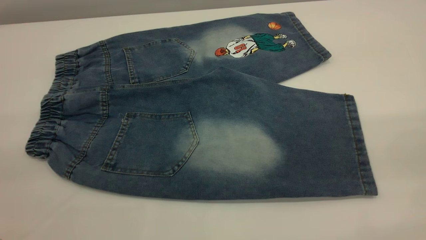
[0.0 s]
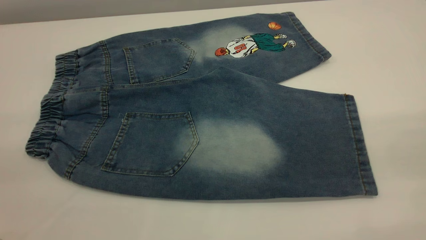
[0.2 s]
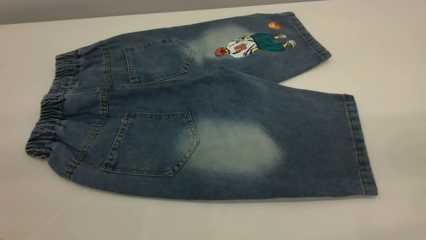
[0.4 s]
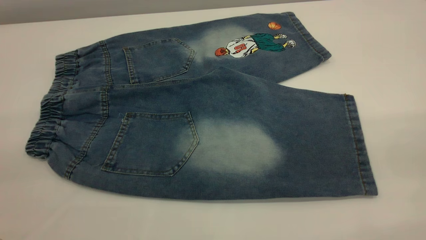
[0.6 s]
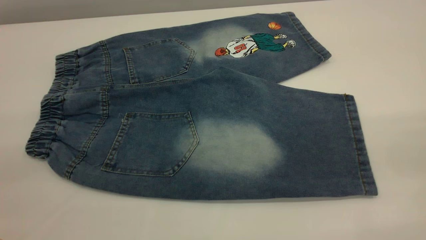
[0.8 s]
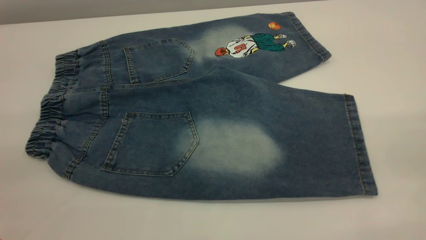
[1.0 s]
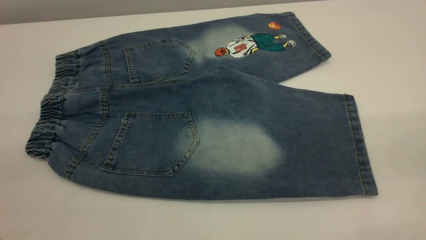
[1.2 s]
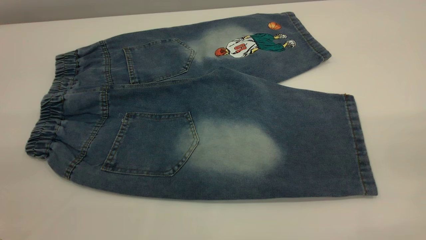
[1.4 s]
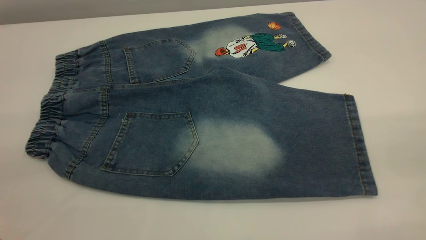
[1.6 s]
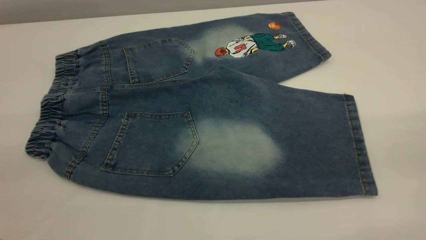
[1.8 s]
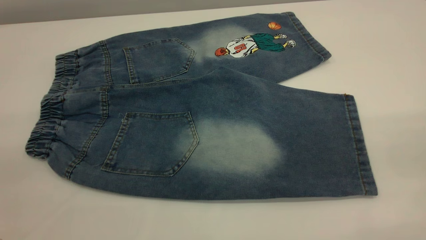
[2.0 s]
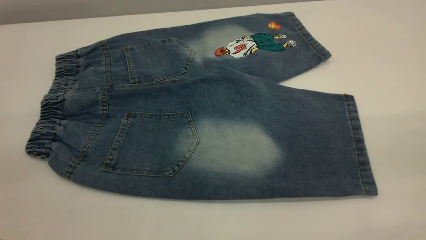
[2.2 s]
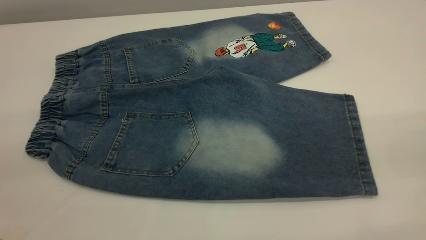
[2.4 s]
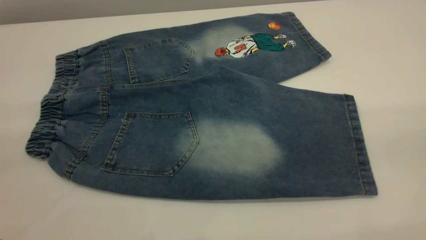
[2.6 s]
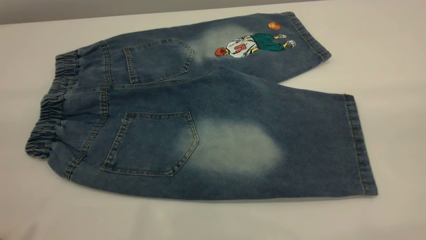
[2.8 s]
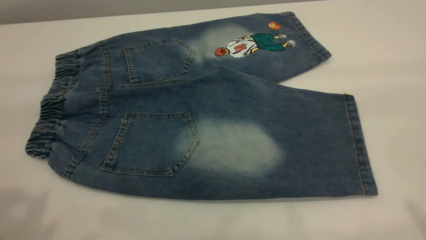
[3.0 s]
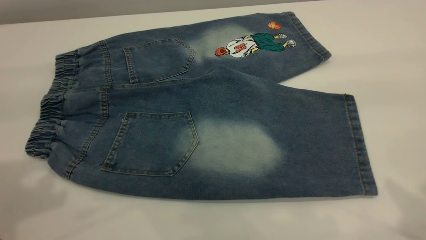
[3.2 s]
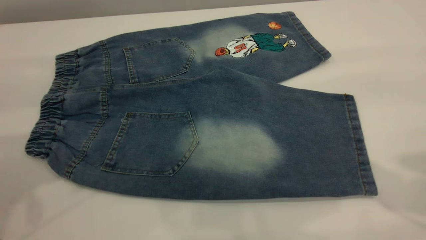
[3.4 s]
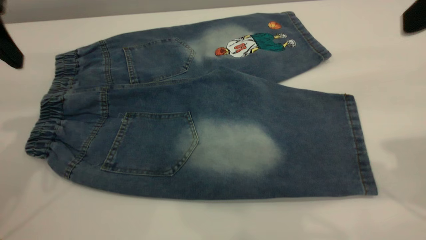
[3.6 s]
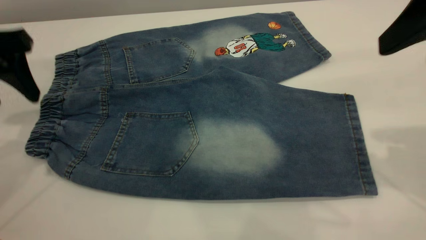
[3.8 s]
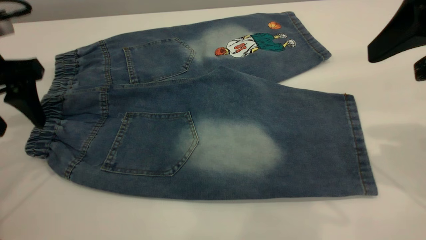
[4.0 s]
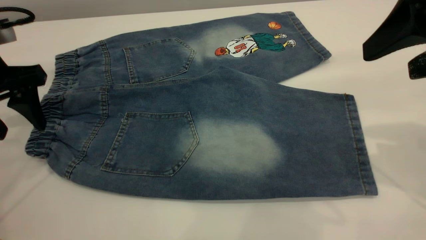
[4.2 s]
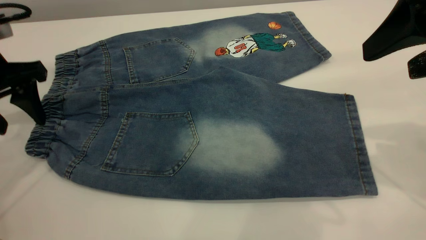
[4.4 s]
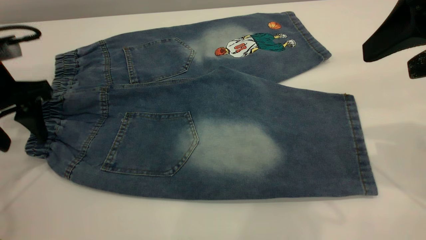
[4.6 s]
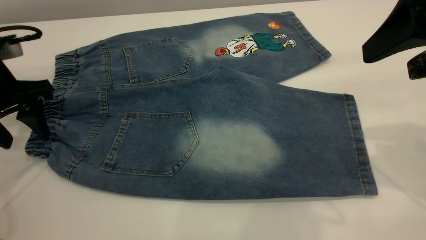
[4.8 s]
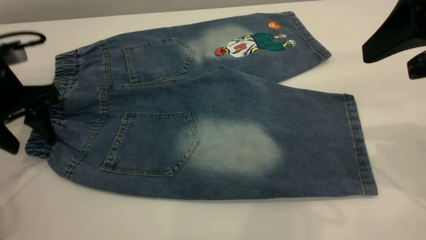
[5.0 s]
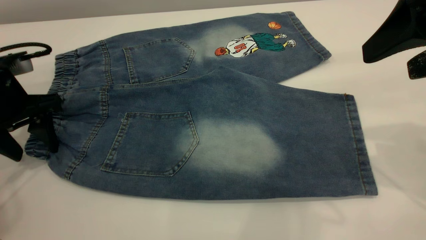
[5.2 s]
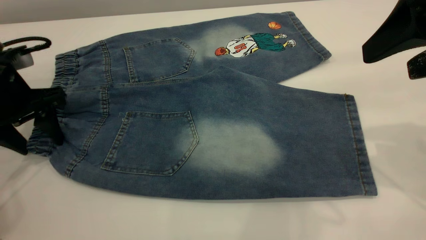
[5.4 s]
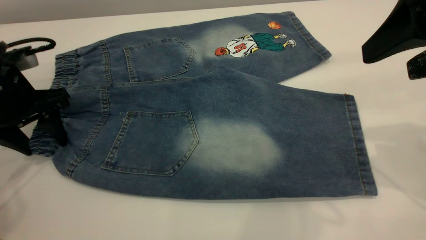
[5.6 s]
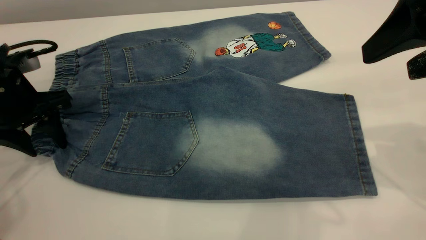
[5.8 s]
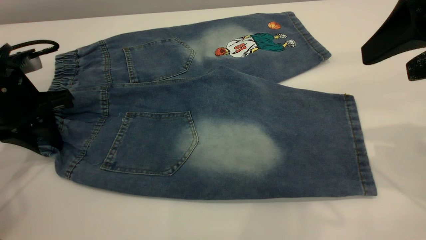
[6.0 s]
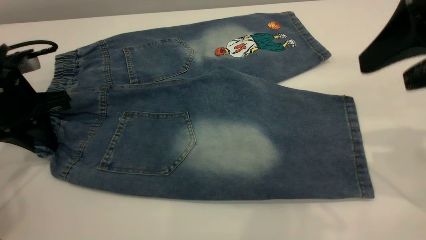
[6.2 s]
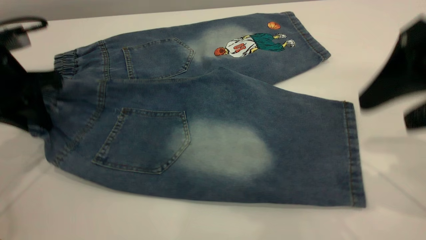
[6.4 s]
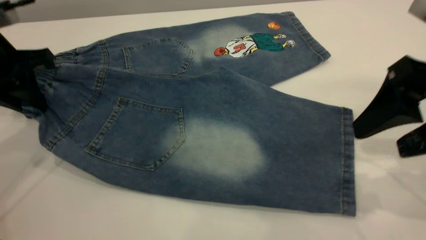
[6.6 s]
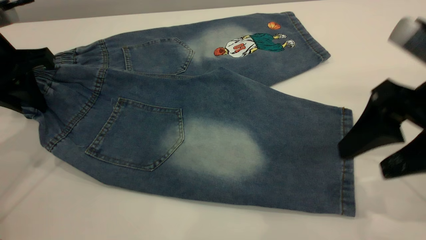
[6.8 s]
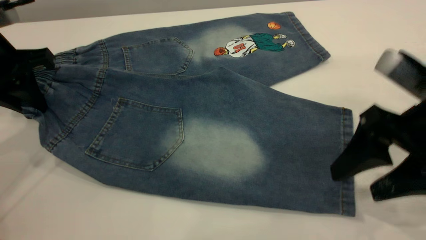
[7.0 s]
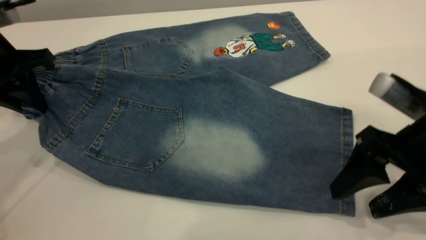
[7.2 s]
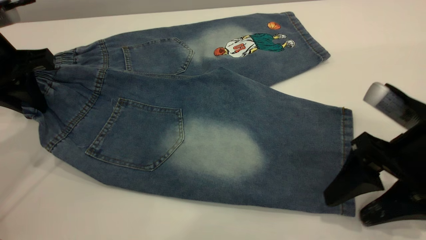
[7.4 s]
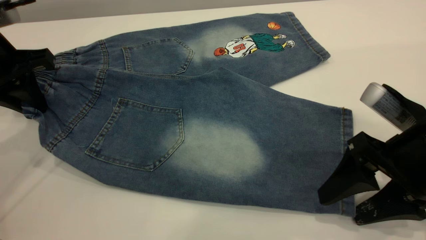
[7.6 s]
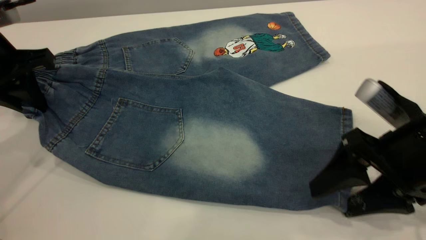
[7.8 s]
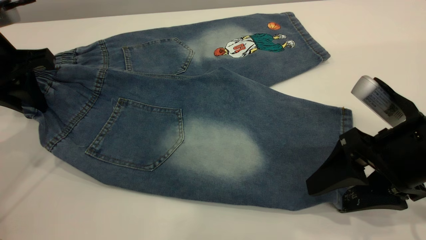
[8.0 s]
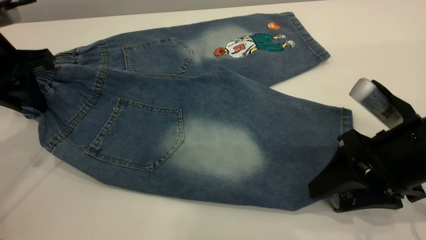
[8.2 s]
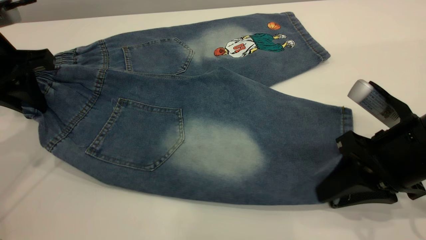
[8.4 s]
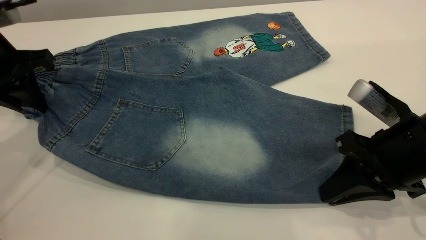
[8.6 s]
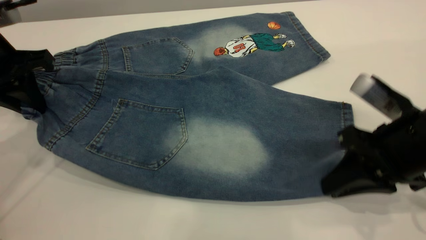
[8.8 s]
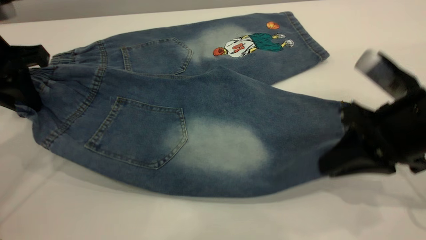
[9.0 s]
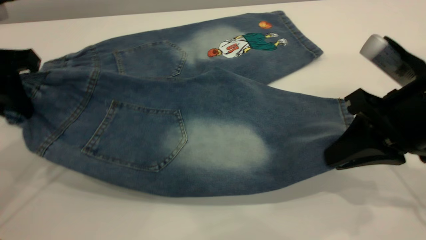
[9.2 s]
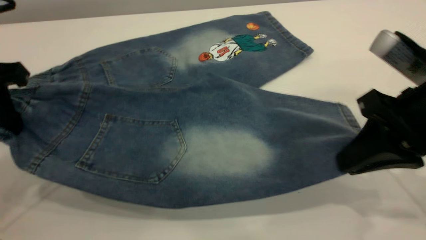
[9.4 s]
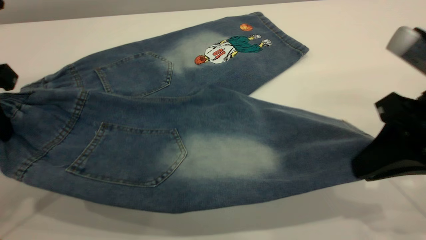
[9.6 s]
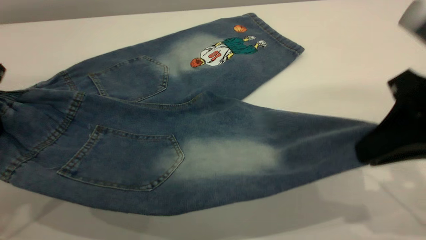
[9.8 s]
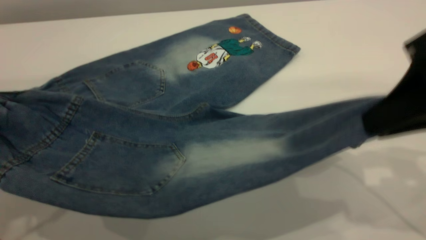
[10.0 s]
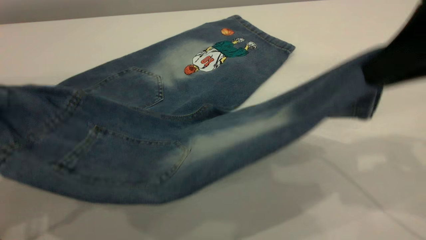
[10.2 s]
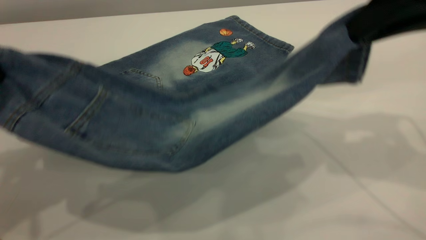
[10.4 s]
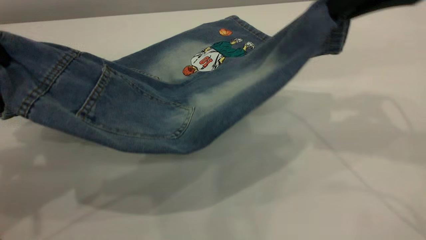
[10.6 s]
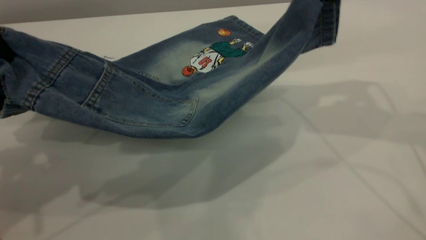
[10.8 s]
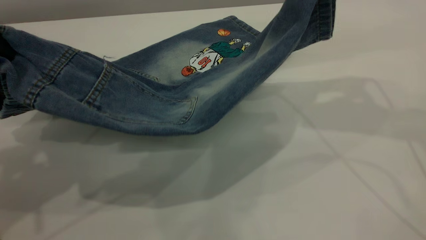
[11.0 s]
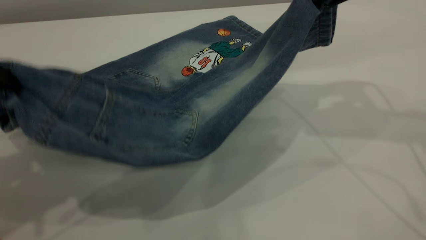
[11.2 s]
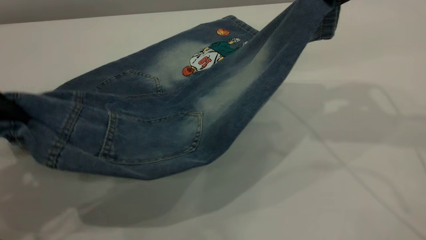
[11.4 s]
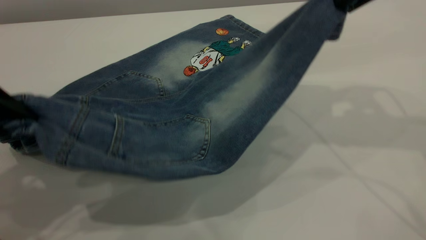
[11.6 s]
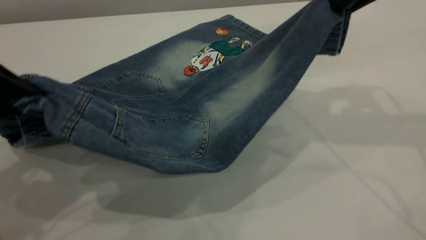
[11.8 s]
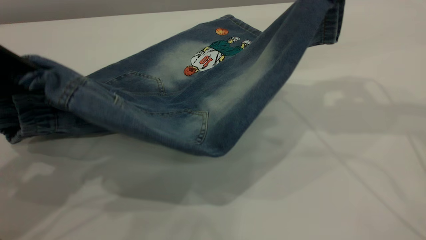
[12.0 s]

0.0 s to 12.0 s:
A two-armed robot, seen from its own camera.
0.0 to 1.6 s: Both grippers stay about where they are.
3.0 to 4.4 s: The right gripper moves forward and downward, about 15 cm. Meanwhile the left gripper goes approximately 25 cm downward and forward.
4.4 to 6.0 s: The left gripper shifts by about 5 cm, and closes.
6.0 to 7.6 s: The right gripper shifts roughly 15 cm downward; the left gripper heads upward, covering some 5 cm.
7.6 to 9.0 s: The right gripper closes its fingers.
9.0 to 10.4 s: The right gripper heads upward, covering roughly 15 cm. Meanwhile the left gripper travels upward and backward by some 15 cm.
10.4 to 12.0 s: The right gripper is displaced forward by about 10 cm.

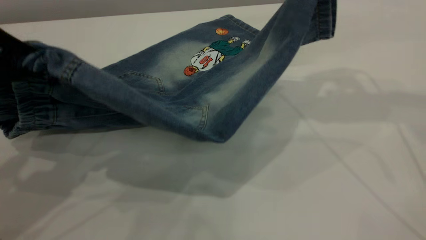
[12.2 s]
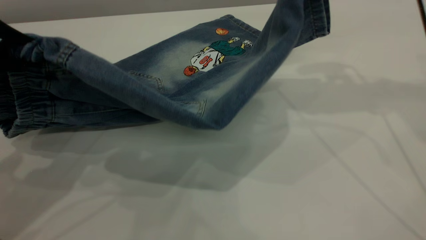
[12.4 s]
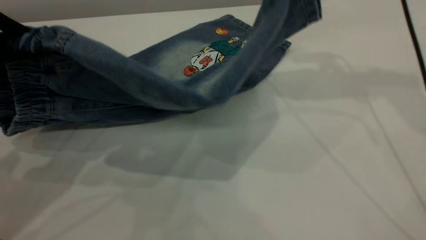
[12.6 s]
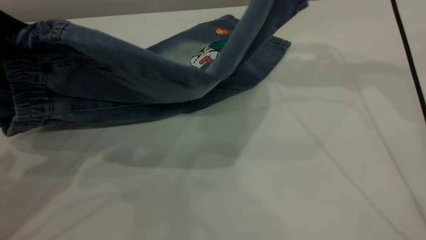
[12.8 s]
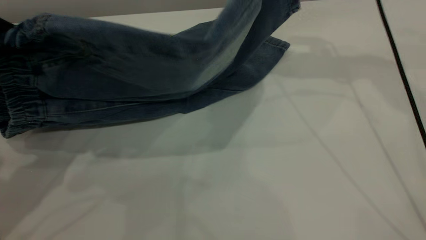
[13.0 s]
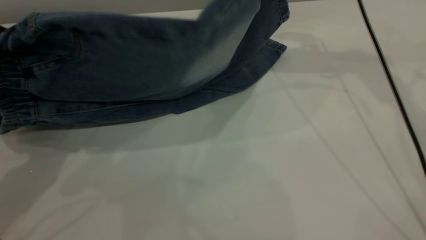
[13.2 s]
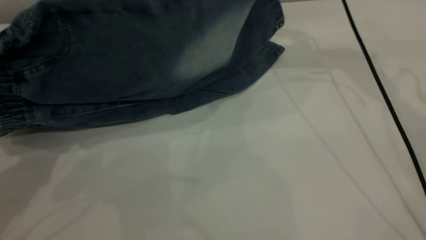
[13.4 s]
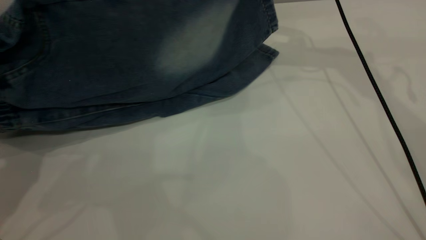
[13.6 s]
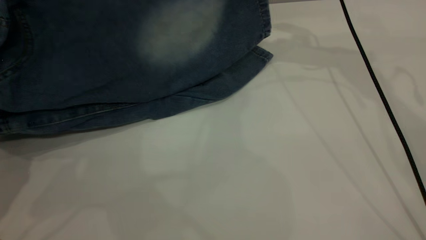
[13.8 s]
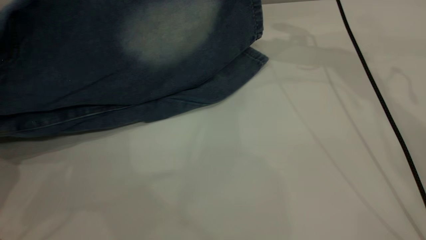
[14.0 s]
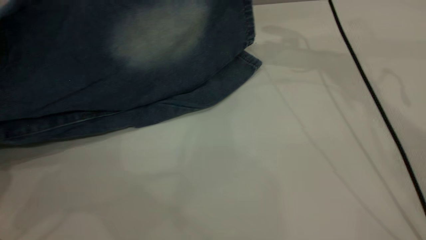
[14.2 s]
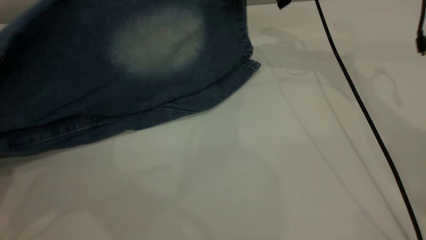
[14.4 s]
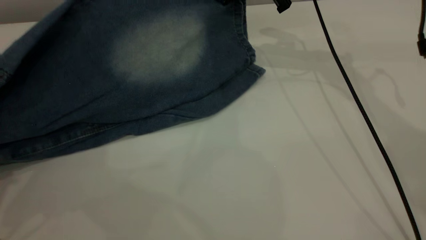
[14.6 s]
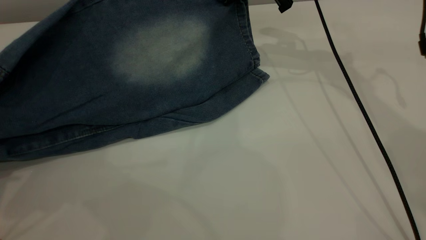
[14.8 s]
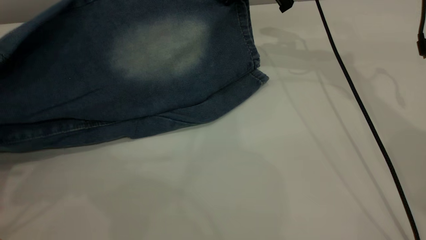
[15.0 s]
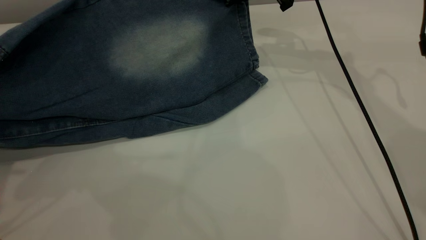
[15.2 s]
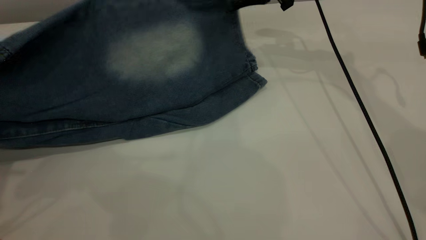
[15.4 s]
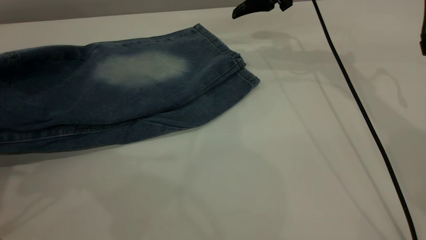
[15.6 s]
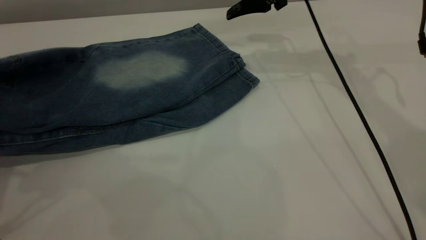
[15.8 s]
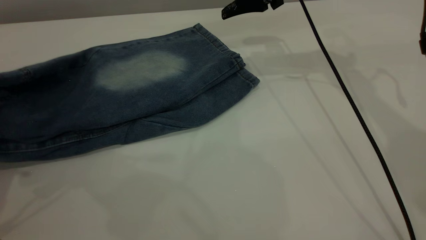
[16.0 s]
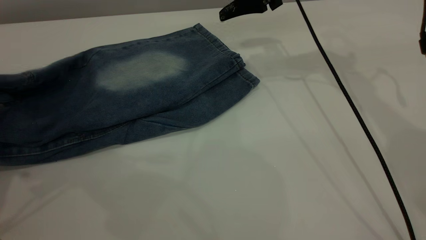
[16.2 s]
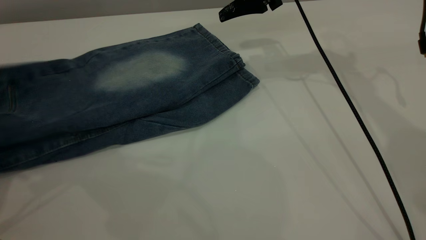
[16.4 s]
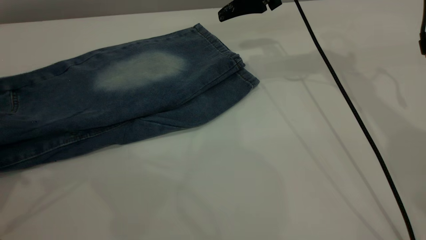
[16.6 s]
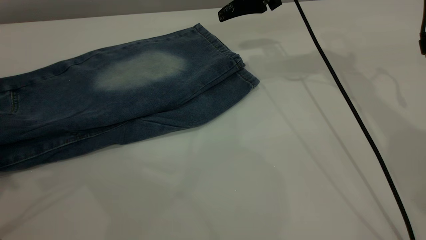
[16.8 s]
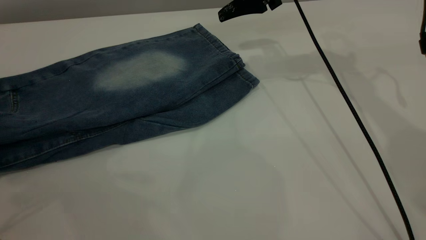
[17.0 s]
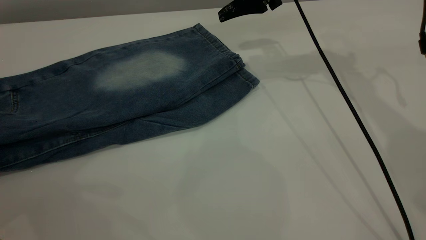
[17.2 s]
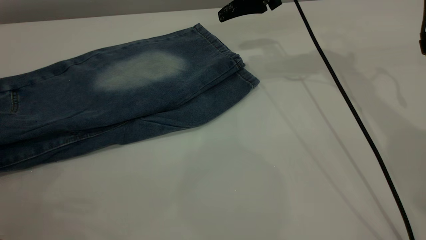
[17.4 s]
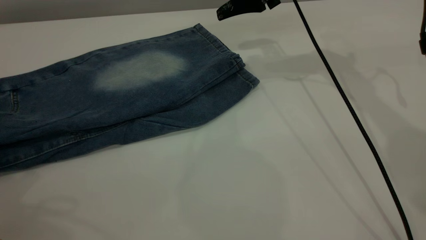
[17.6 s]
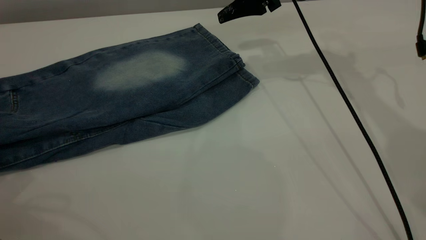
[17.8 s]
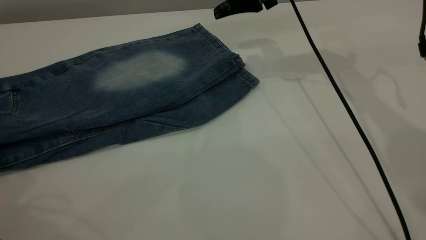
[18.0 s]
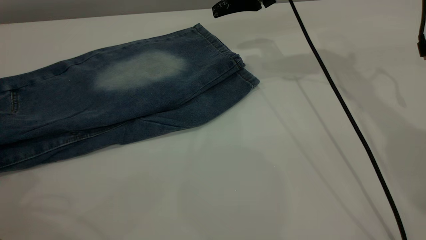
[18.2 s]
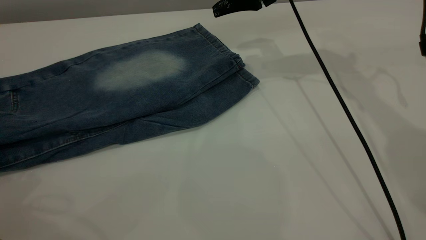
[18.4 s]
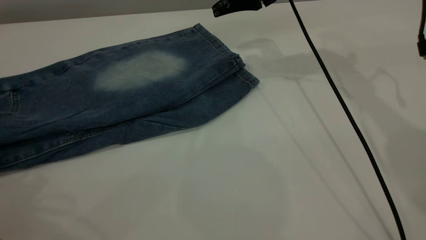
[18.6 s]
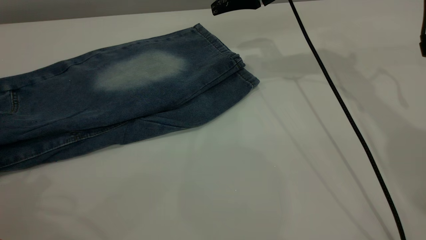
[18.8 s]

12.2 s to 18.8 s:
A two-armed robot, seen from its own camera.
Step, 12.2 to 16.4 s: Fold the bottom of the pants upward.
12.2 to 13.8 s: The right gripper is displaced forward by approximately 15 cm.
13.8 to 15.4 s: The right gripper opens its fingers.
15.4 to 17.2 s: The right gripper opens its fingers. The left gripper heads to the left, covering roughly 5 cm, and opens its fingers.
17.2 to 18.8 s: The left gripper moves some 5 cm.
